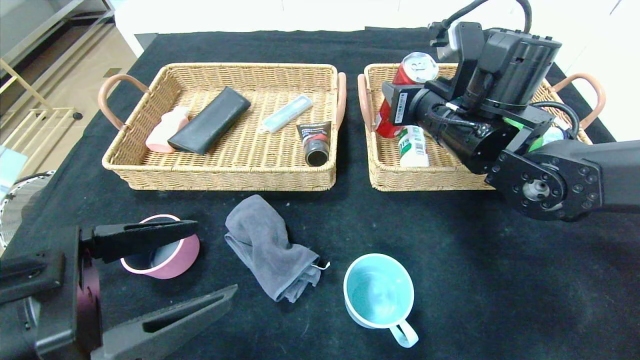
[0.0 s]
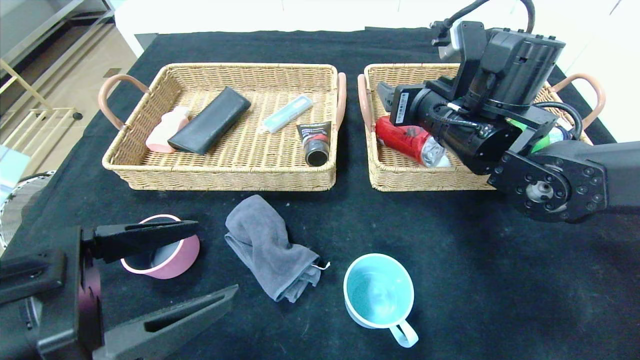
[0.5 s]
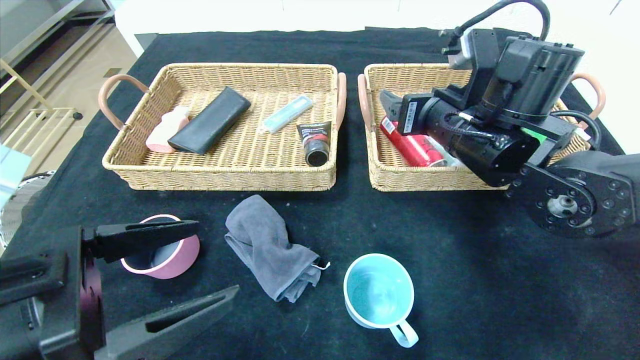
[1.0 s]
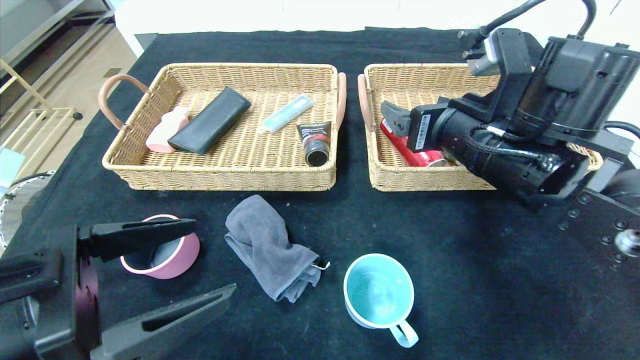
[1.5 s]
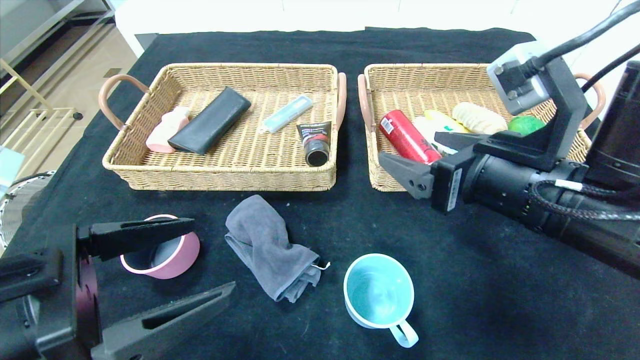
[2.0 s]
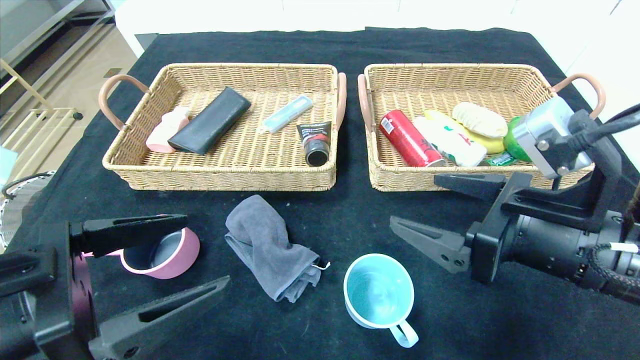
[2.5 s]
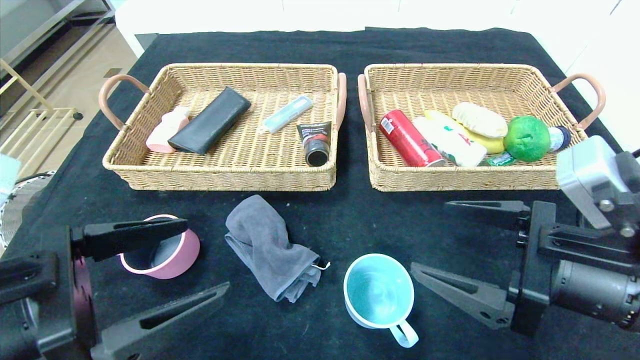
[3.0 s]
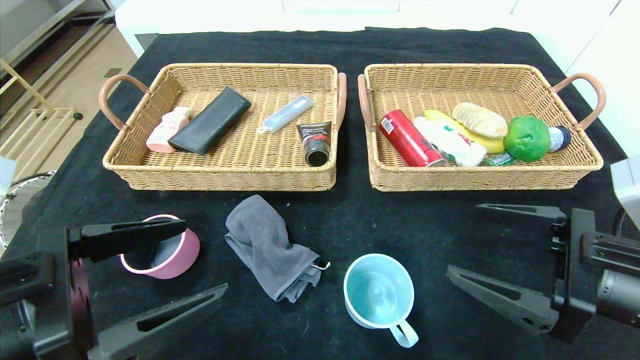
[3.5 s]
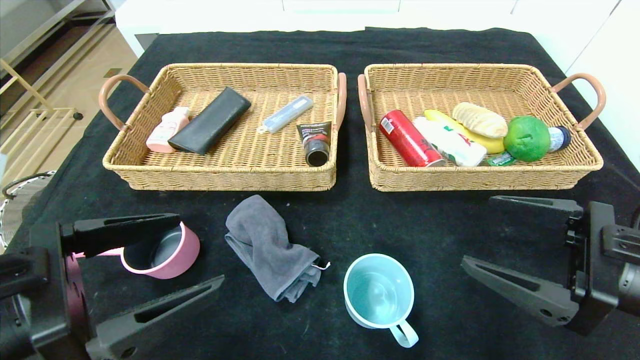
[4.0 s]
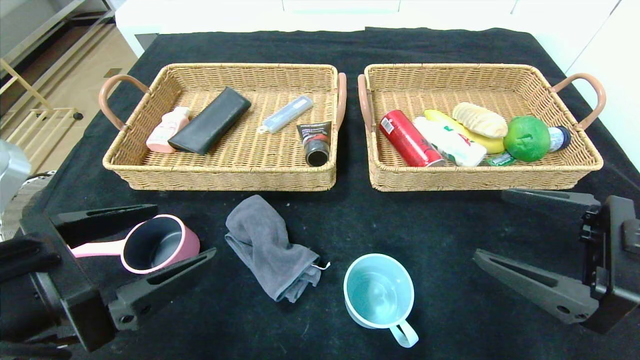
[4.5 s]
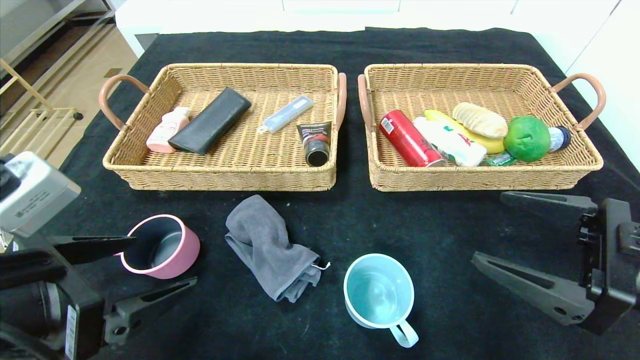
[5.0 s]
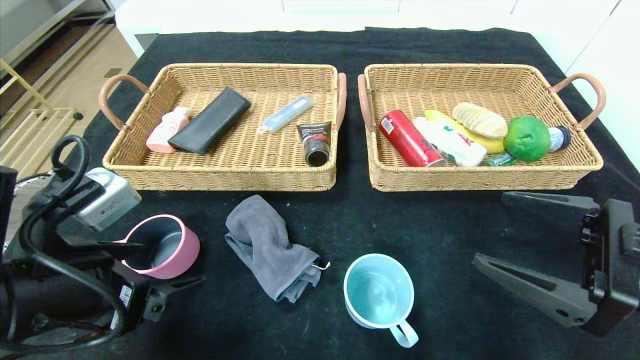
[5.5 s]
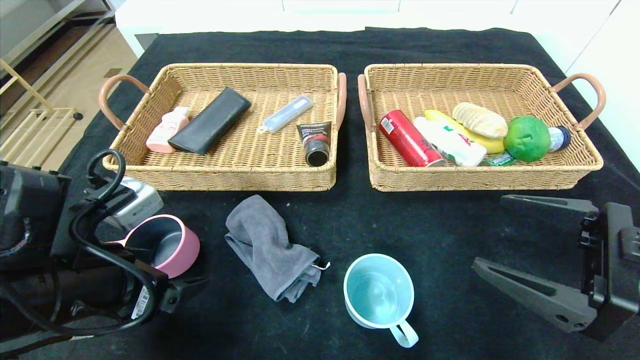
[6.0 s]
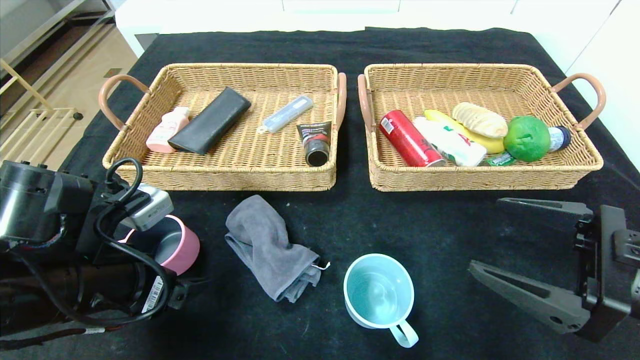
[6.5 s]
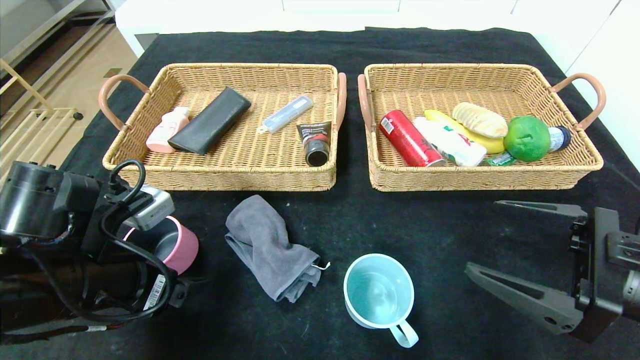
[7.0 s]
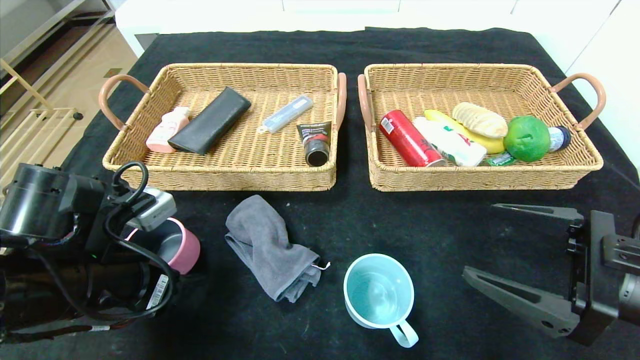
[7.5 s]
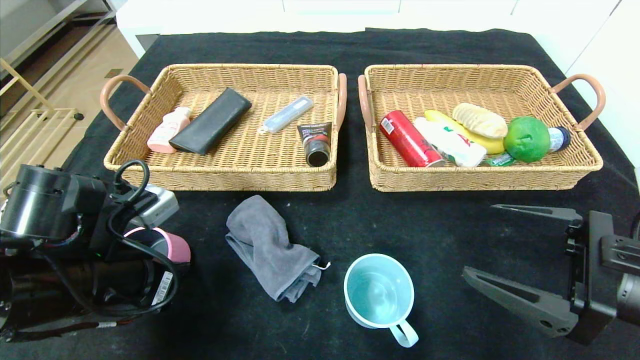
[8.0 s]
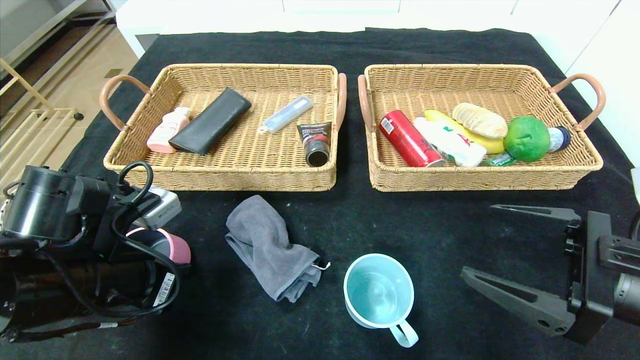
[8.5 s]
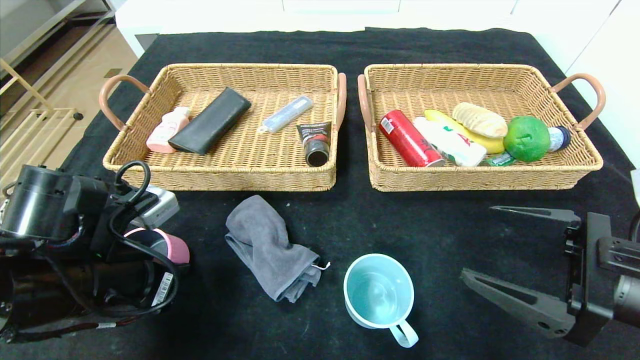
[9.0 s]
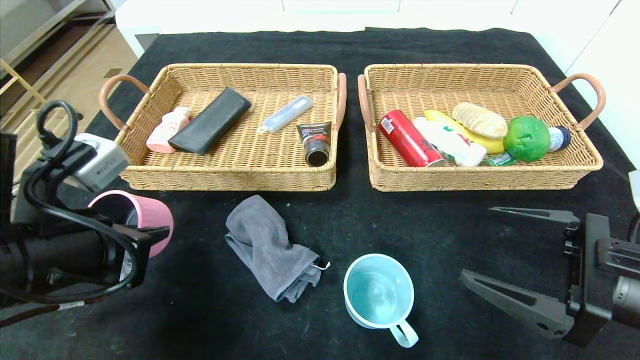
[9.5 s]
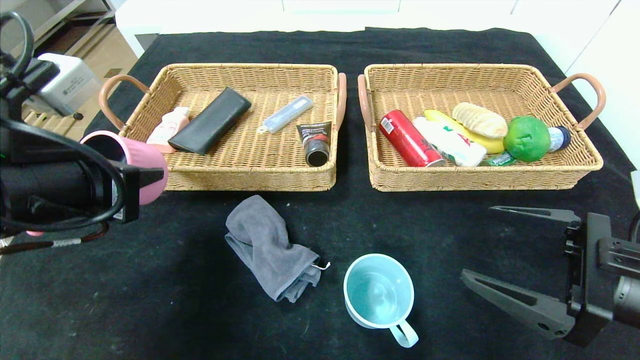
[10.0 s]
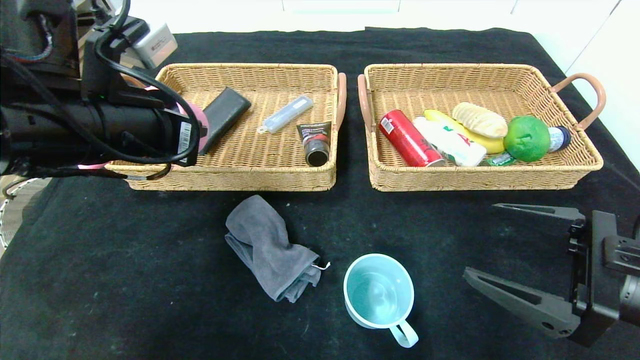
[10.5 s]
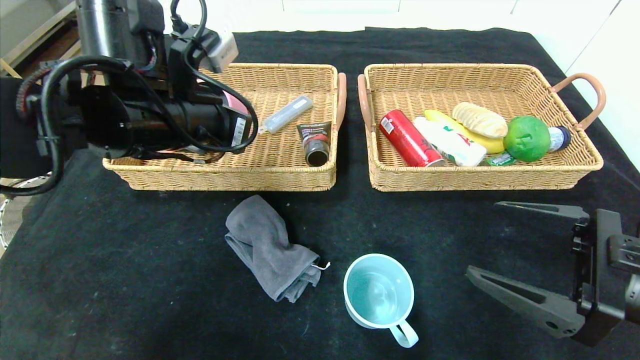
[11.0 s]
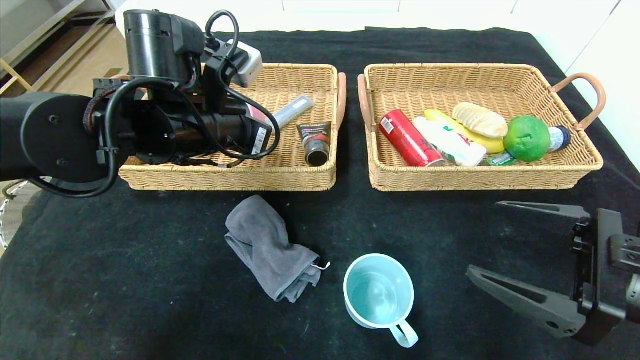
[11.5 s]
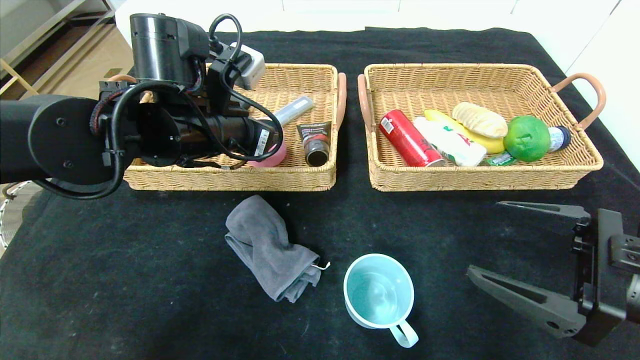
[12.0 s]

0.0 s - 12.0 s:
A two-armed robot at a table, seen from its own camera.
Step, 1.5 s - 12.0 s: Grasp the pink pot and put it in the left basket.
0.0 s - 2.0 s: The right gripper travels backward by roughly 15 cm, and opens up.
2.0 s - 4.0 s: The right gripper heads to the right and backward, covering some 10 cm.
4.0 s - 6.0 s: The left gripper travels forward by some 5 cm.
6.0 s - 8.0 s: The left gripper closes up.
8.0 s - 10.0 s: The left gripper shifts roughly 10 cm upward.
10.0 s - 12.0 s: The left gripper travels forward and to the right by about 15 cm, and opens its fingers.

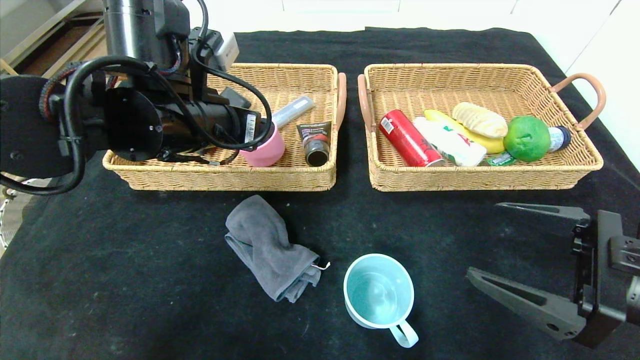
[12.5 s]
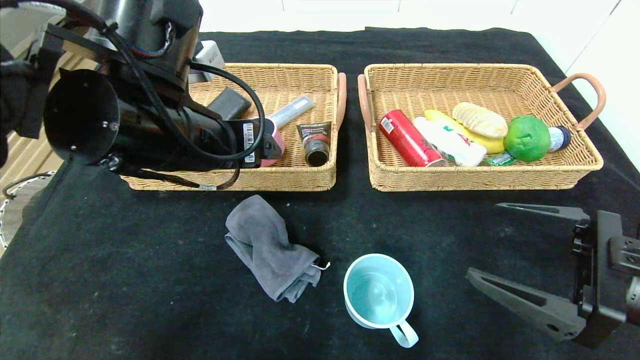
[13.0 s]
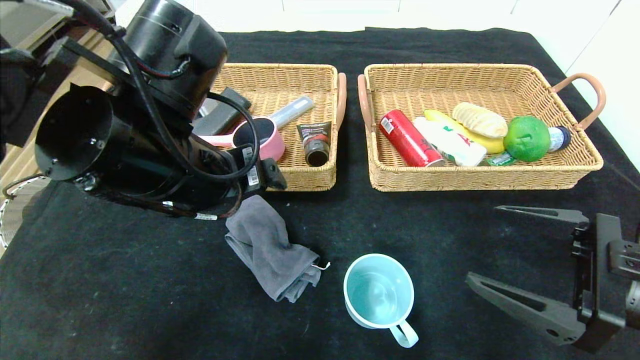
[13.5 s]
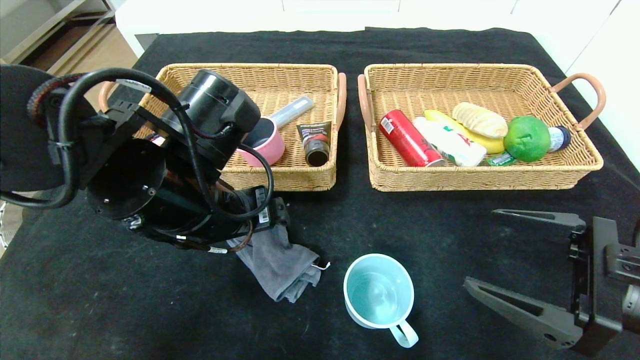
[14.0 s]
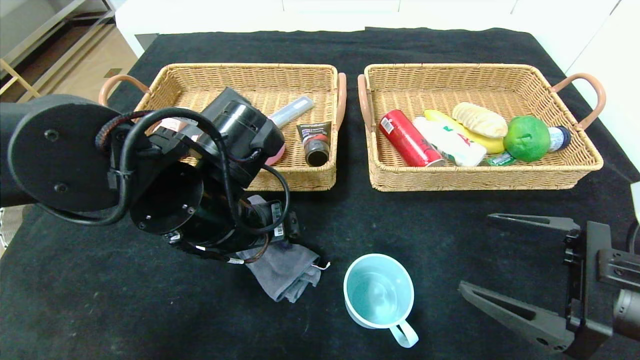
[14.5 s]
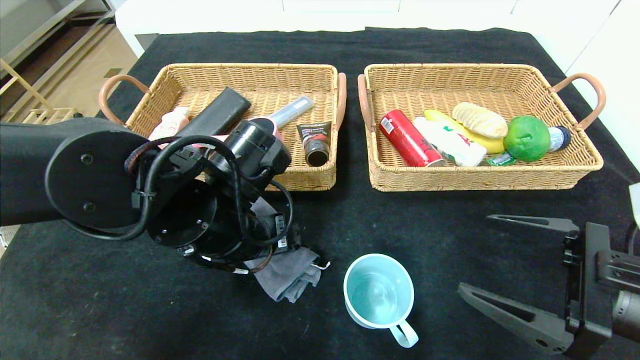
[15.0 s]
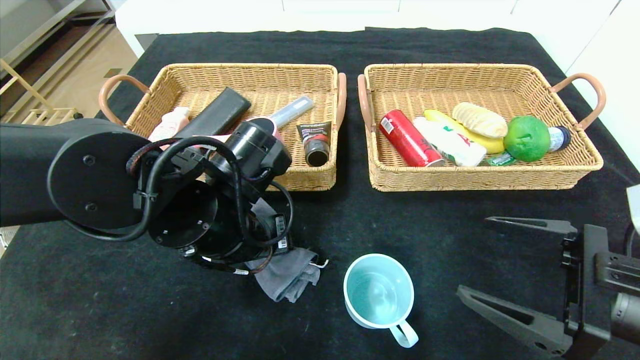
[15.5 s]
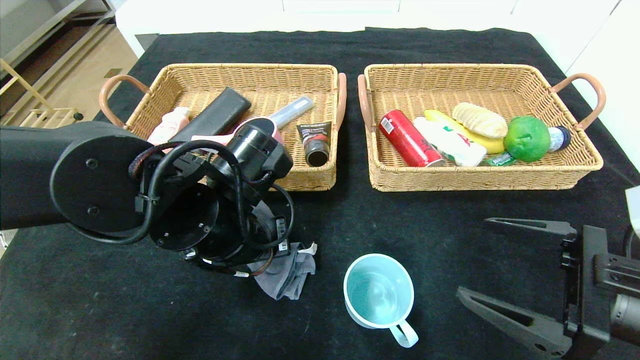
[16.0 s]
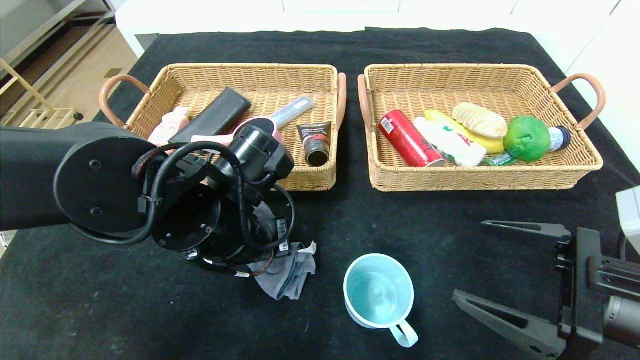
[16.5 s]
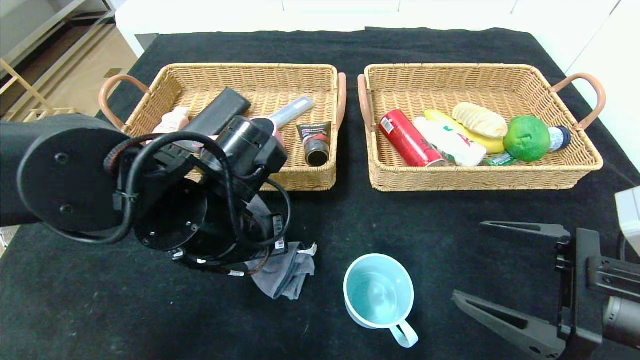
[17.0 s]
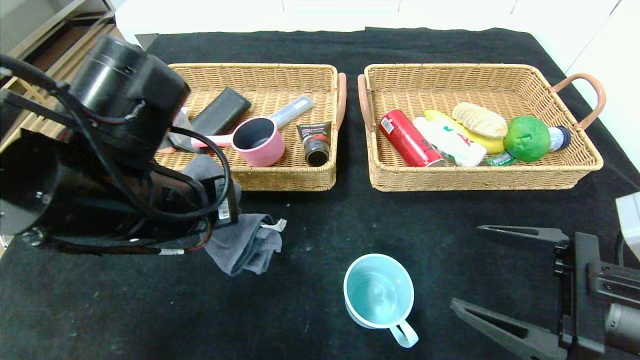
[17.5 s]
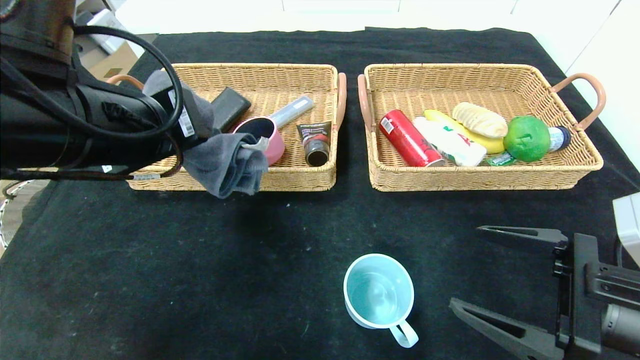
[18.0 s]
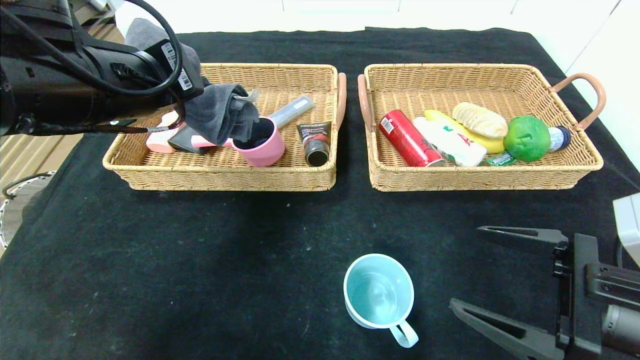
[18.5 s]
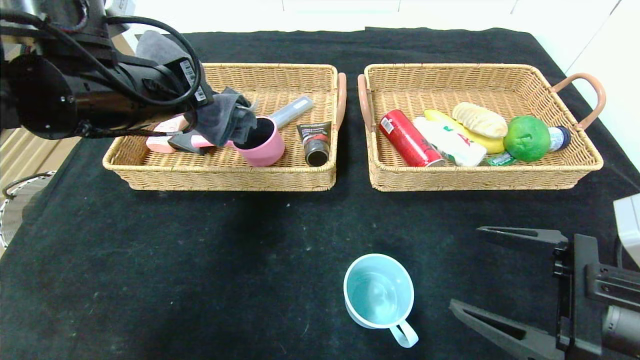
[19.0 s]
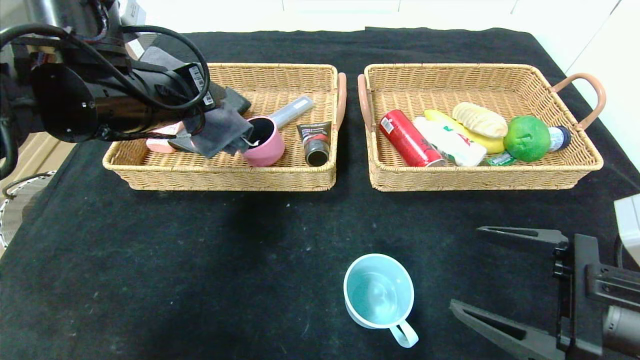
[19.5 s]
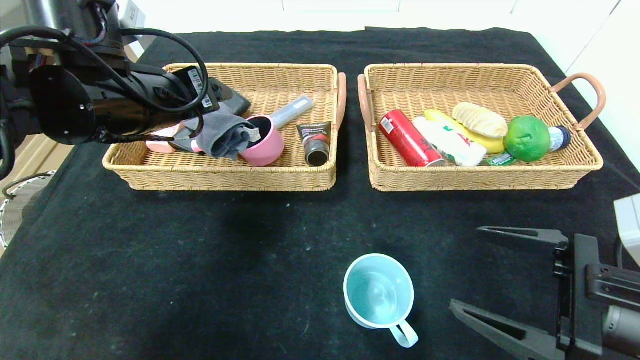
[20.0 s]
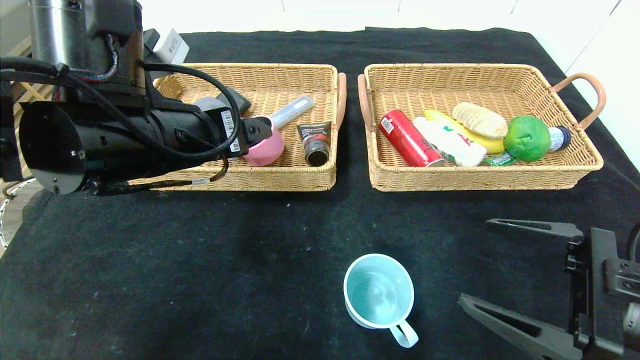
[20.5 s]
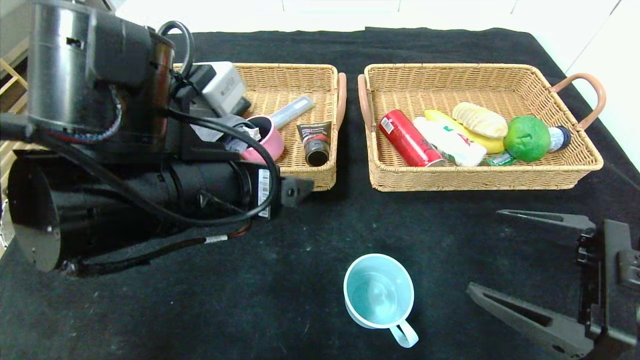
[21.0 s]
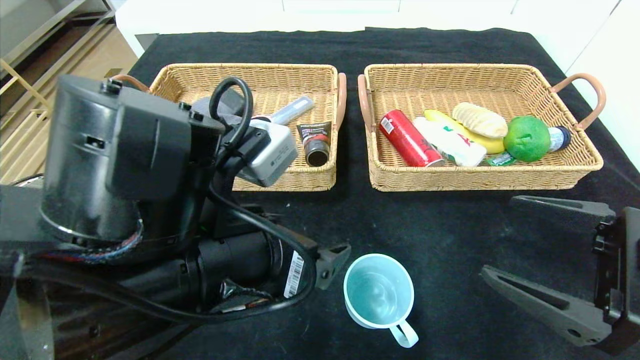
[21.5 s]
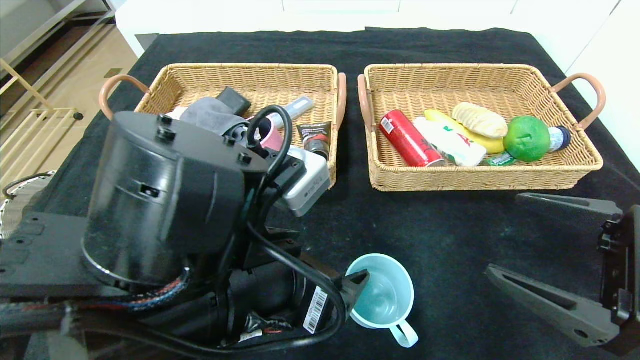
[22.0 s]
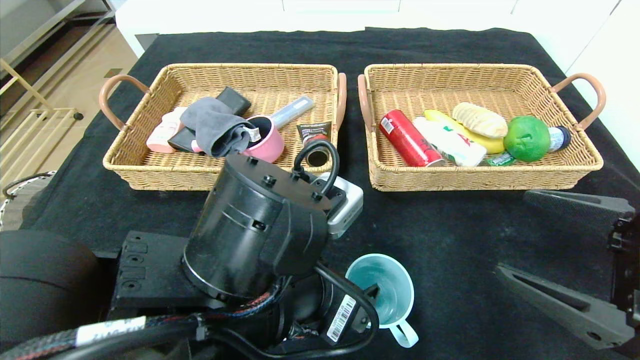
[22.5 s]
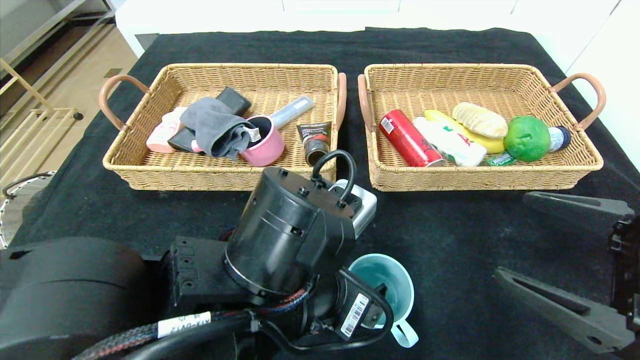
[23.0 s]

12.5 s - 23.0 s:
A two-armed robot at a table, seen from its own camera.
Step, 12.5 s - 20.0 s: Grasp the gray towel and put it in the left basket.
12.5 s - 14.5 s: The left gripper shifts some 10 cm downward and backward.
14.5 s - 16.5 s: The left gripper closes.
16.5 s - 19.0 s: The left gripper shifts some 15 cm upward and to the left.
19.0 s - 21.0 s: The left gripper heads backward, to the right and downward, covering about 15 cm, and opens.
21.0 s - 23.0 s: The left gripper goes some 10 cm to the right and downward.
